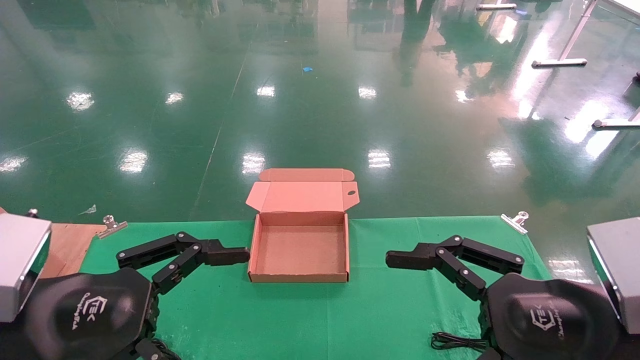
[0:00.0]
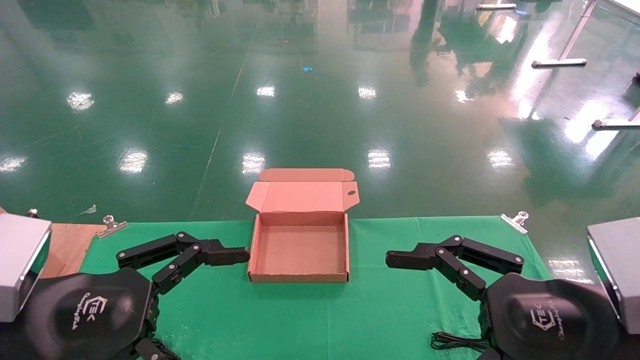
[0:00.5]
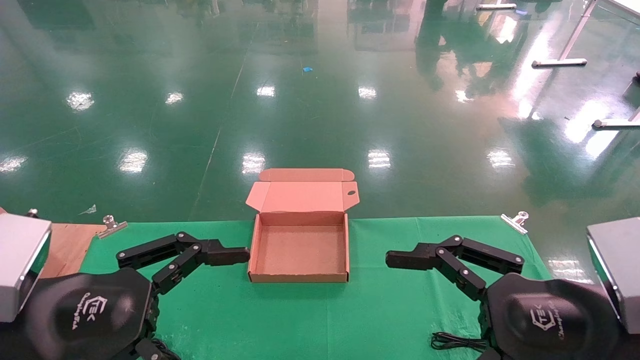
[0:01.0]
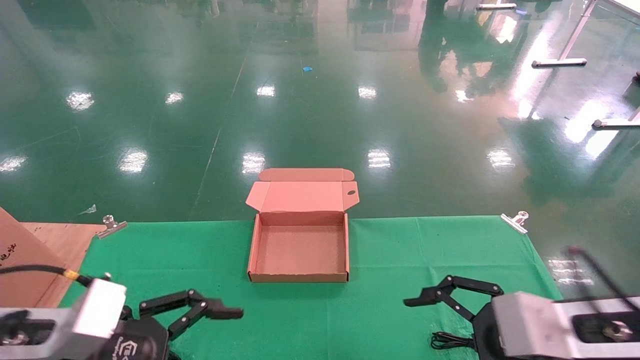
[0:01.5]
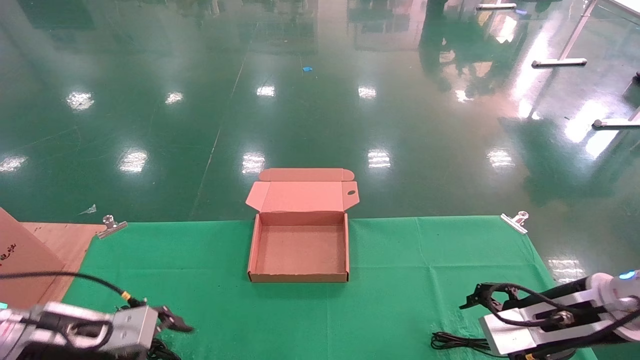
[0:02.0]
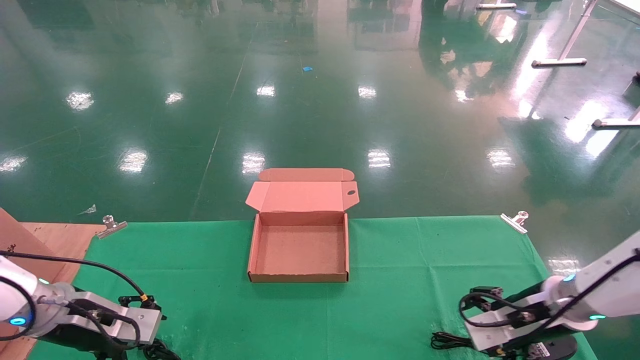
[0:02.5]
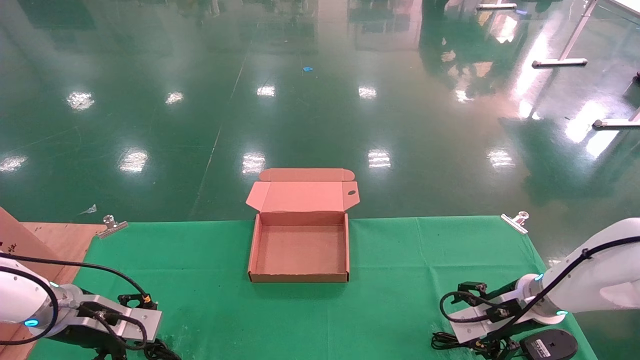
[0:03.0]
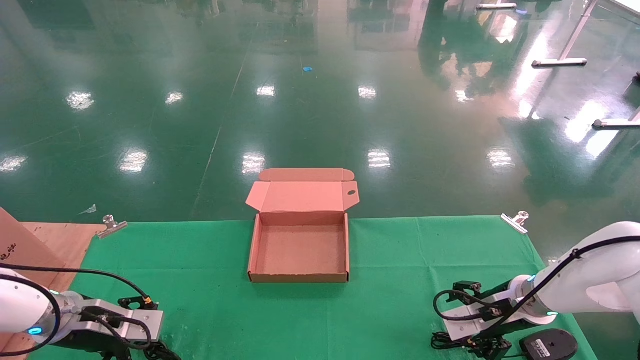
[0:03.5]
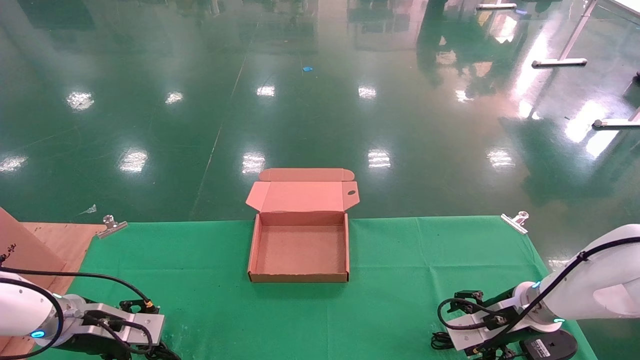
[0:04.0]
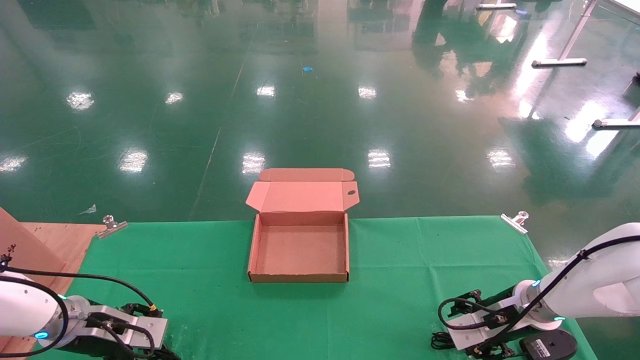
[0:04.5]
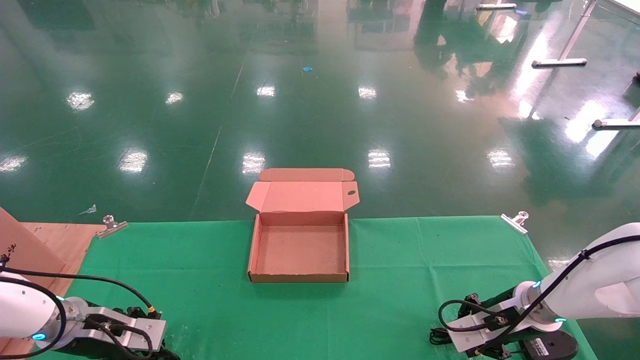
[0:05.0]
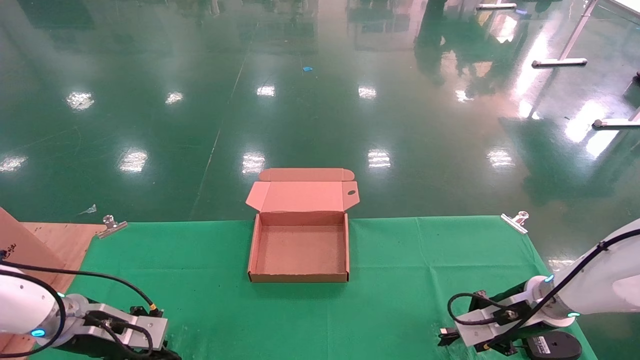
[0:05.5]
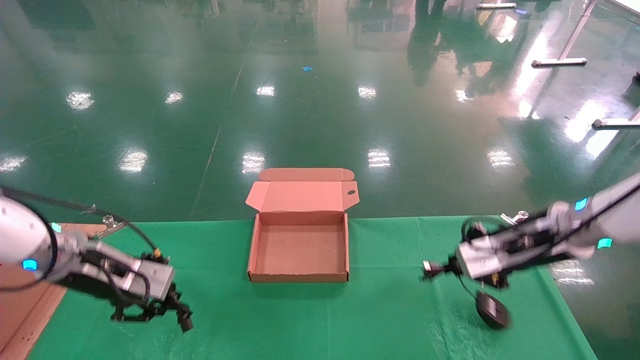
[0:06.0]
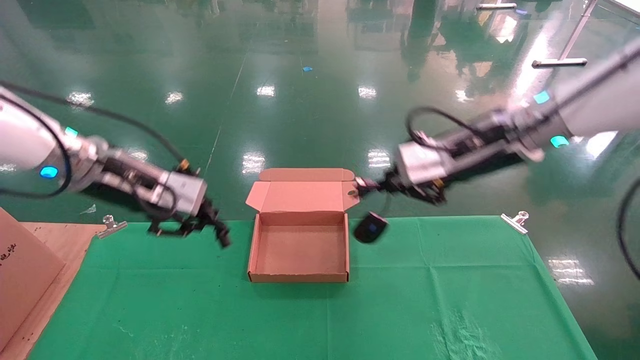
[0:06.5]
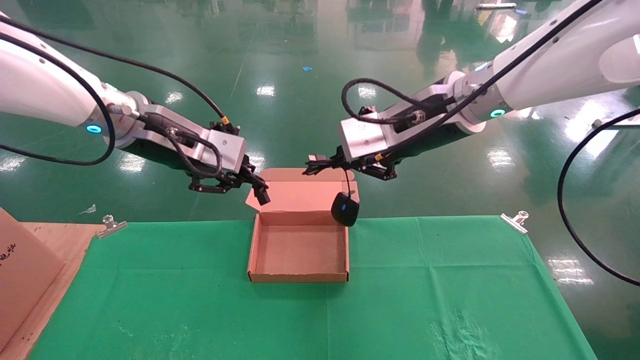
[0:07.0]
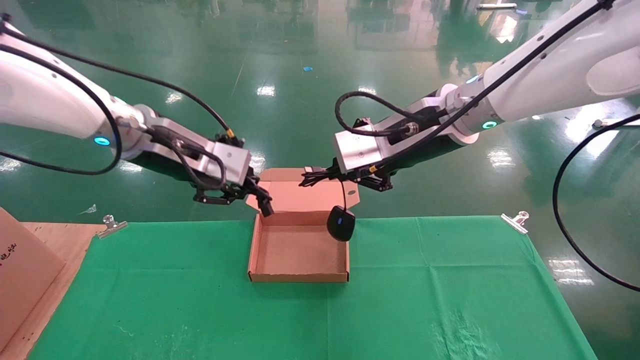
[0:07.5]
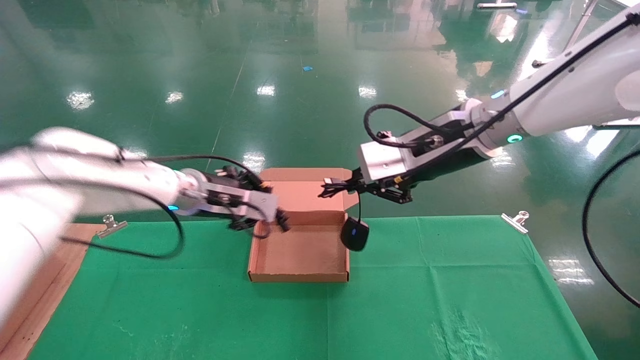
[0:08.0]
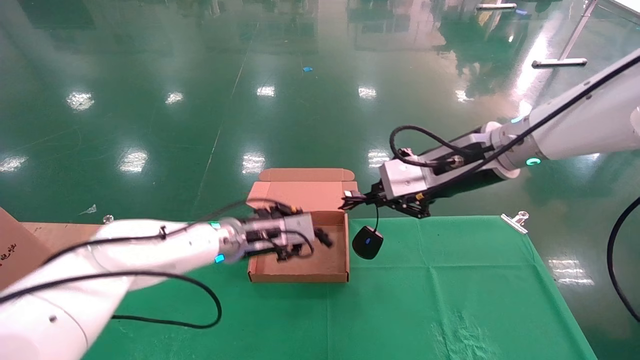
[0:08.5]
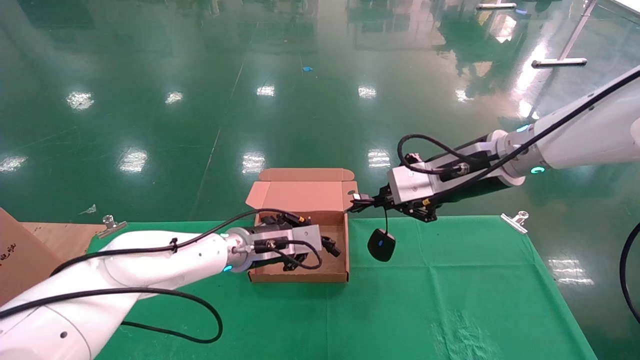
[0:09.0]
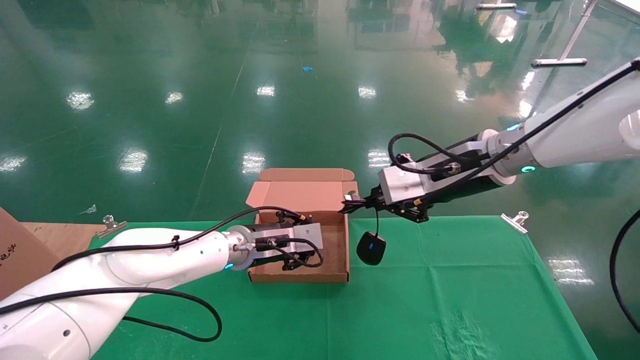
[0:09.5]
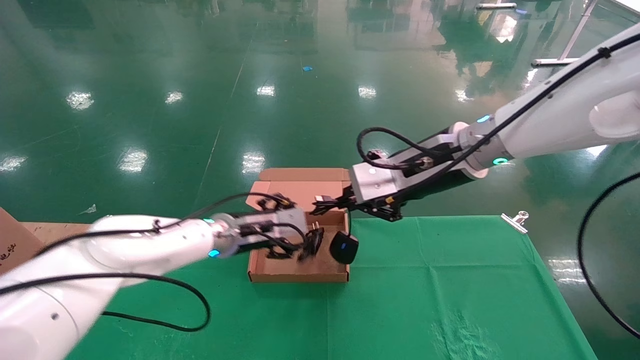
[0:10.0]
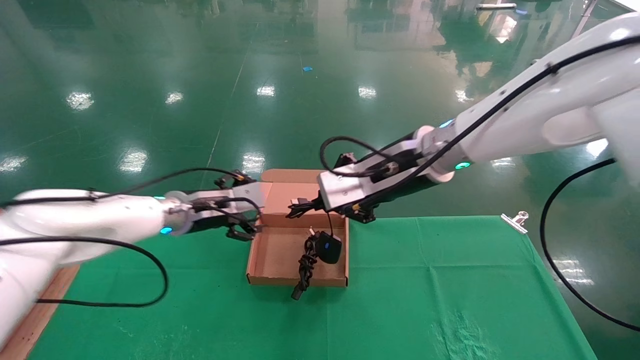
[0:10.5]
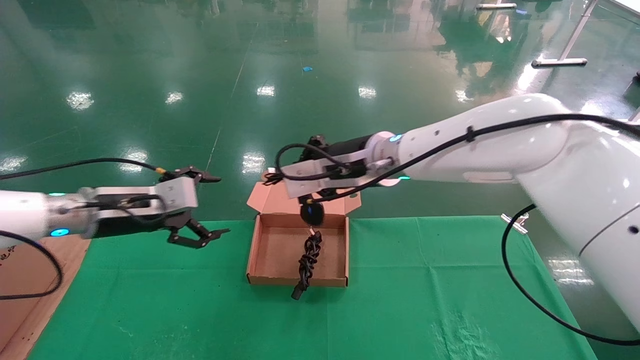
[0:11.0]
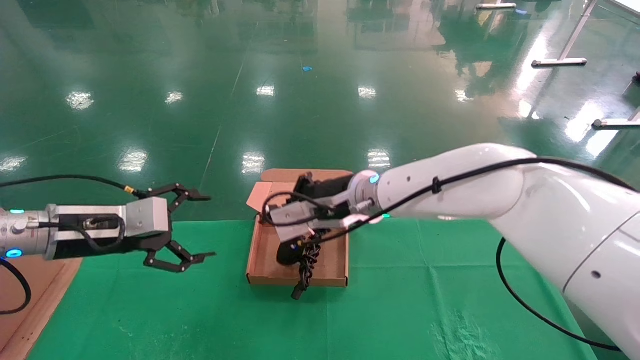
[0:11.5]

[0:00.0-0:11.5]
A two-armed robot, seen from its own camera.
Step, 0:02.0 to 0:06.5: Grab and lift both the mouse and power cord from the accessory packaging area at the same time.
0:00.0 to 0:02.0: The left gripper travels forward, downward and to the left by some 20 cm. The right gripper moves forward and downward, approximately 15 cm.
0:02.0 to 0:04.0: The two grippers go some 10 cm forward and downward.
0:04.0 to 0:06.0: Both grippers move upward, about 15 cm. The right gripper closes up; the left gripper closes up.
0:06.0 to 0:07.5: The left gripper goes approximately 20 cm upward and to the right. Meanwhile the right gripper shifts roughly 25 cm to the left and upward.
0:07.5 to 0:09.5: The right gripper moves downward and to the right, approximately 5 cm; the left gripper goes some 20 cm downward, to the right and forward.
0:09.5 to 0:11.5: The right gripper travels to the left and downward by about 15 cm. Meanwhile the left gripper travels to the left and backward by some 25 cm, and opens its fingers.

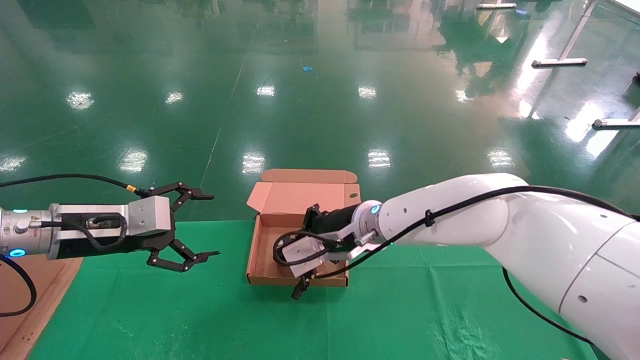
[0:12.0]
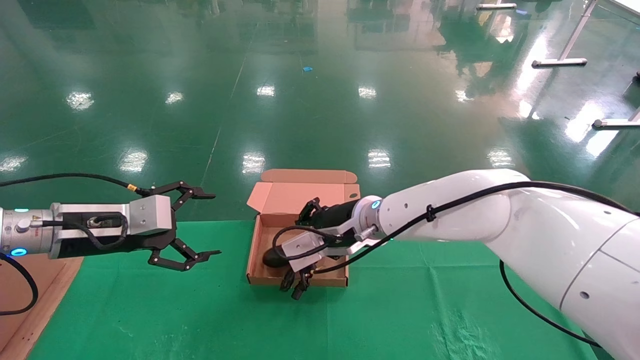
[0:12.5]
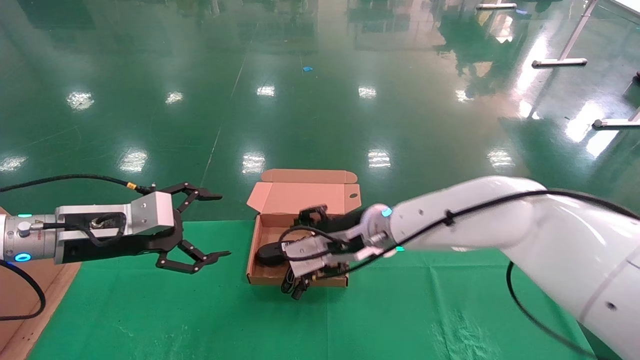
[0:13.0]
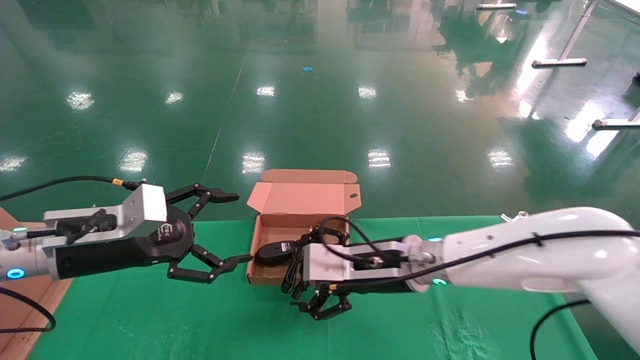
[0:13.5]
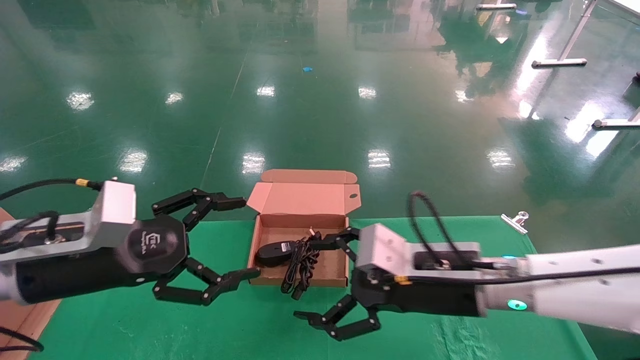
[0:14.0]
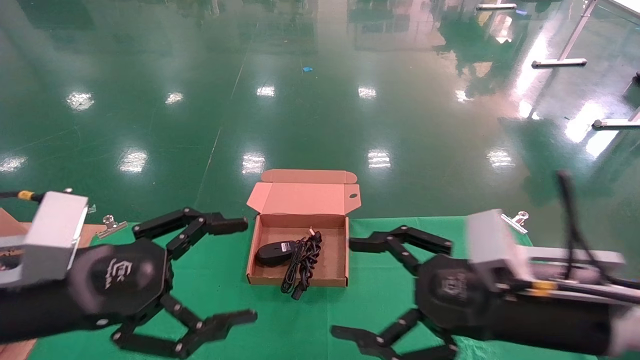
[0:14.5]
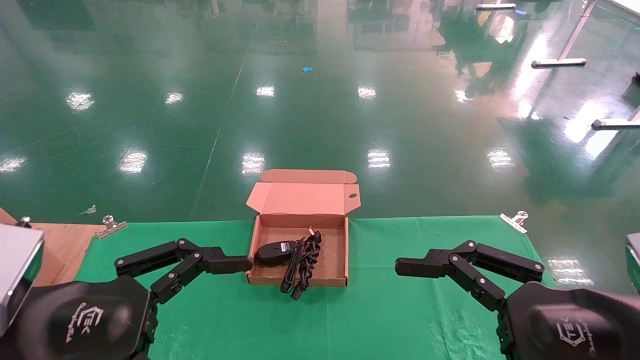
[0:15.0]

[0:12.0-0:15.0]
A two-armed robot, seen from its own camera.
0:12.0 to 0:13.5: The left gripper shifts by roughly 5 cm. Meanwhile the right gripper is displaced backward and to the right by roughly 10 cm, and opens.
0:13.5 to 0:15.0: The left gripper moves backward, approximately 15 cm. The right gripper heads backward and to the right, covering about 25 cm.

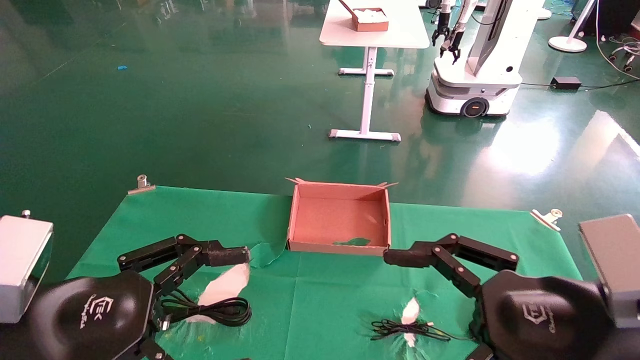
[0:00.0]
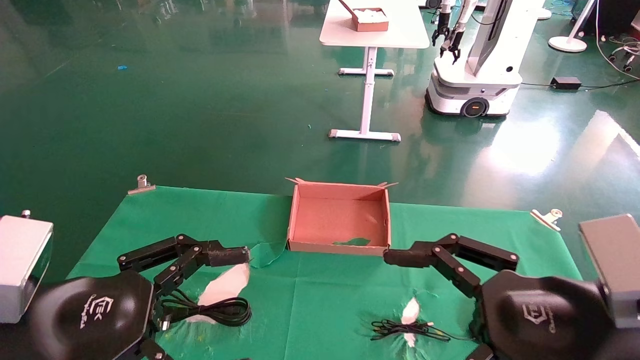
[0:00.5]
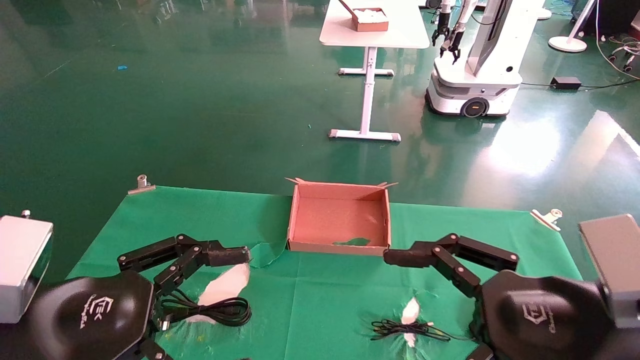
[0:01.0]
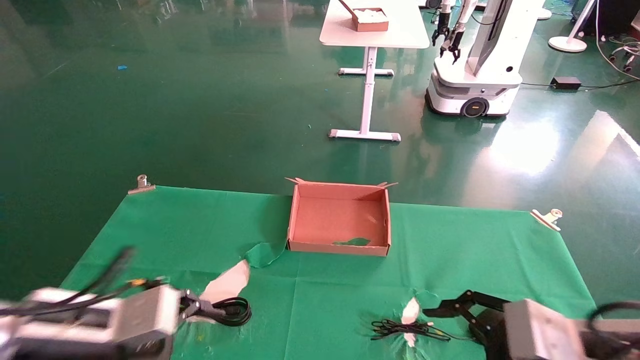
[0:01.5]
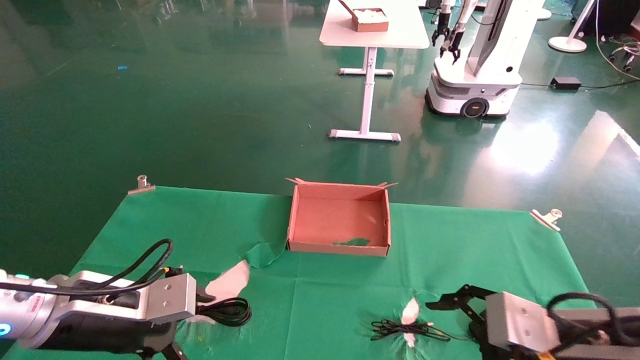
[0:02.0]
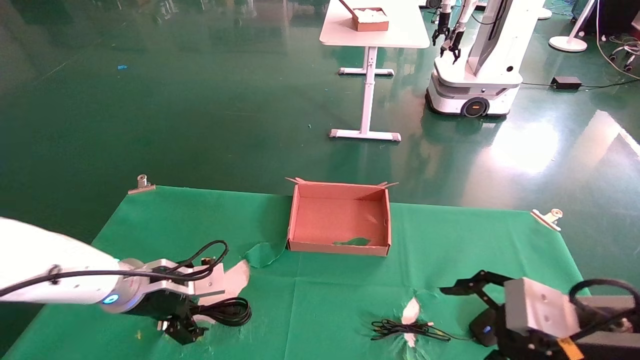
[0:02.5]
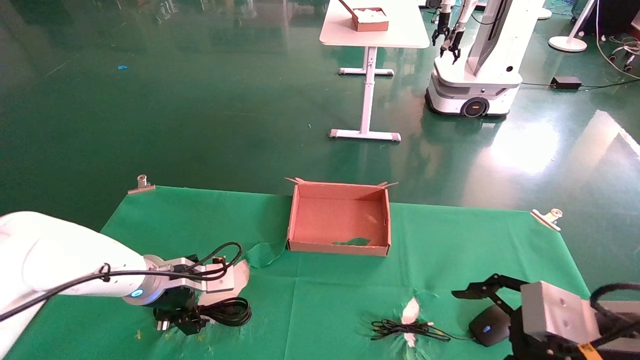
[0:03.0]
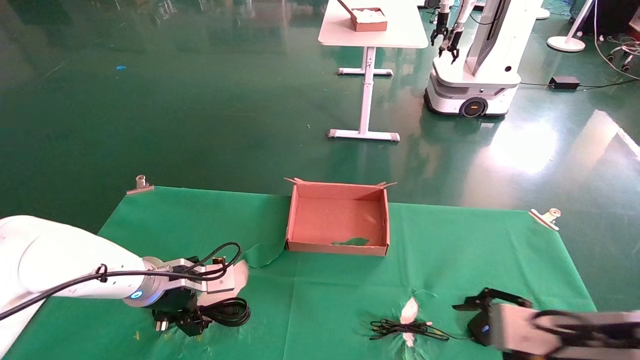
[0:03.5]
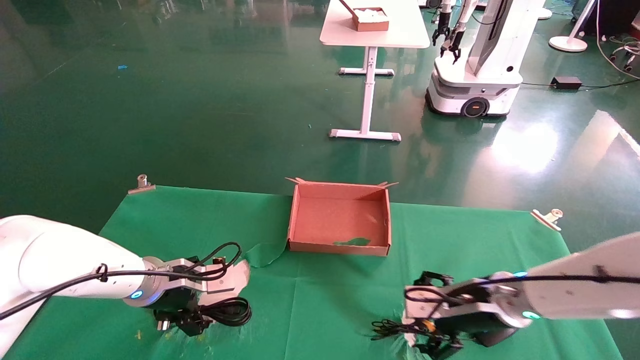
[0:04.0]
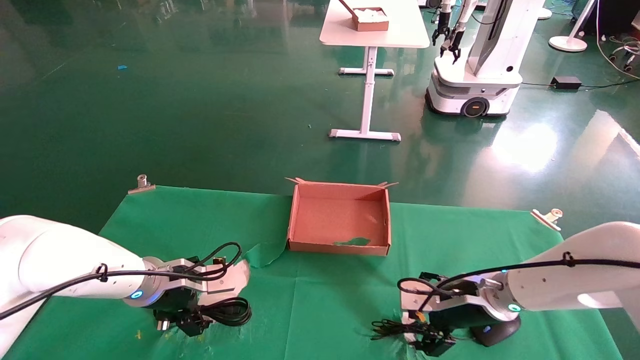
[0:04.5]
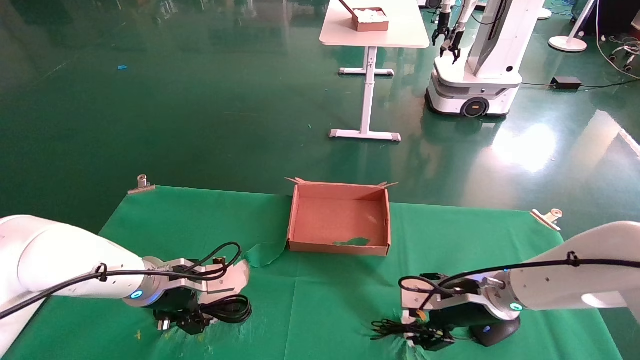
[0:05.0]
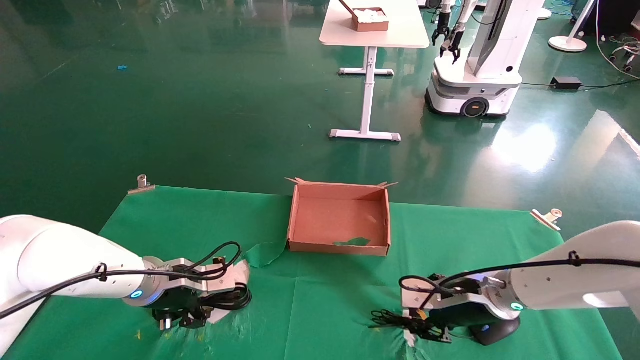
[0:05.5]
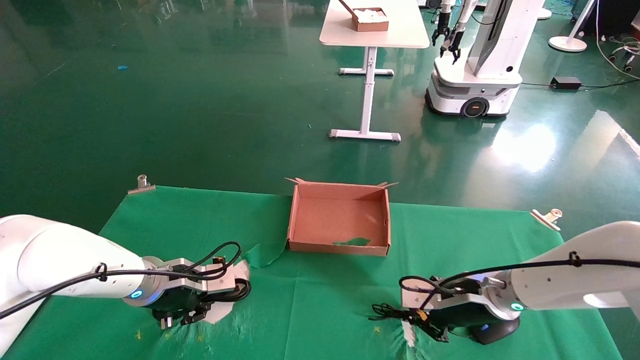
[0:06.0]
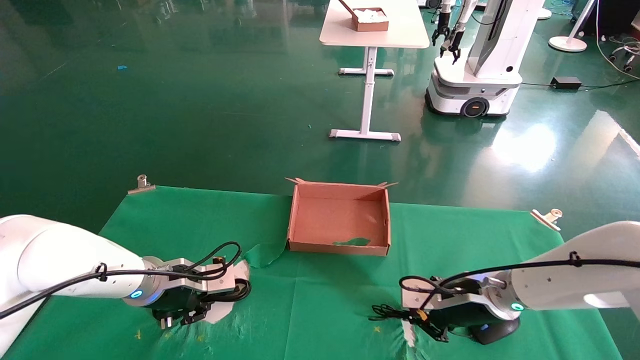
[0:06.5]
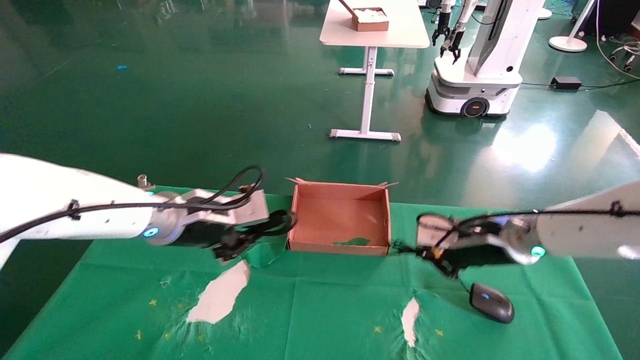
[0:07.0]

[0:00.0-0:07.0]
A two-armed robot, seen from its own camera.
Step, 0:01.5 to 0:06.0: Grab and lift both the mouse and power cord from the accessory packaging area at the same time.
0:00.0 to 0:02.0: The right gripper goes roughly 10 cm downward and forward, while the left gripper moves forward and downward, about 10 cm.
0:02.0 to 0:03.5: The left gripper goes approximately 10 cm forward.
0:03.5 to 0:05.0: The right gripper heads forward and to the left, covering about 15 cm.
0:05.0 to 0:07.0: The right gripper is displaced upward by some 10 cm, and closes its fingers. The left gripper heads upward and to the right, covering about 15 cm, and closes.
